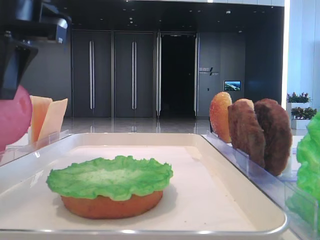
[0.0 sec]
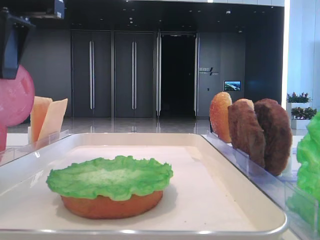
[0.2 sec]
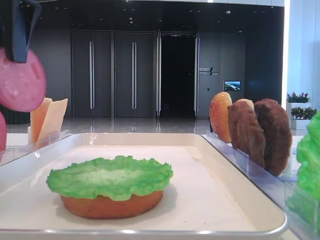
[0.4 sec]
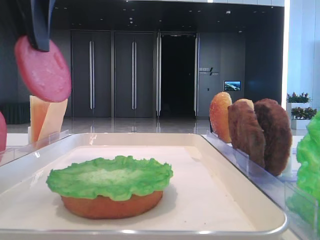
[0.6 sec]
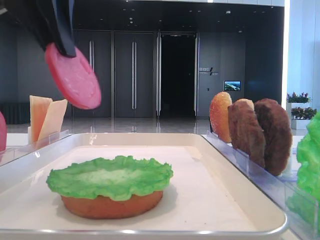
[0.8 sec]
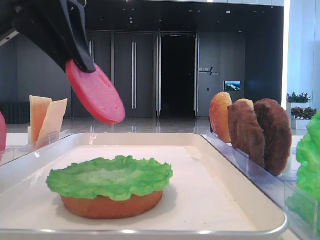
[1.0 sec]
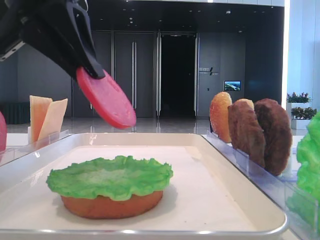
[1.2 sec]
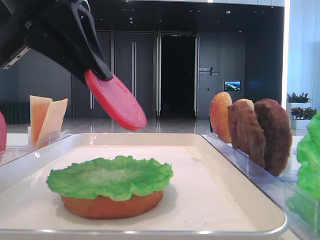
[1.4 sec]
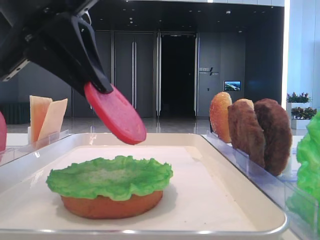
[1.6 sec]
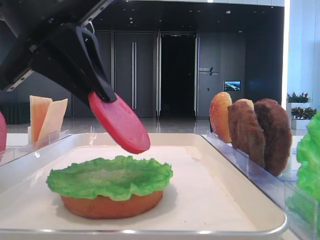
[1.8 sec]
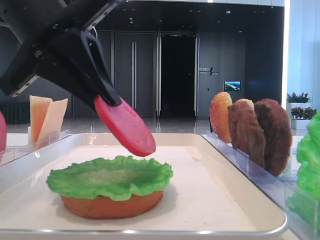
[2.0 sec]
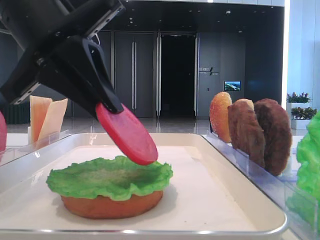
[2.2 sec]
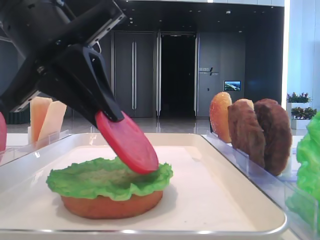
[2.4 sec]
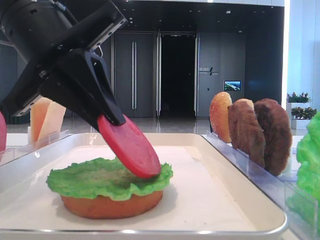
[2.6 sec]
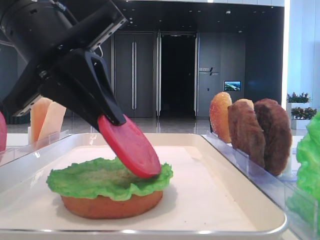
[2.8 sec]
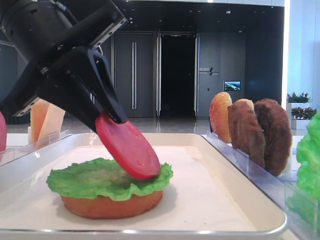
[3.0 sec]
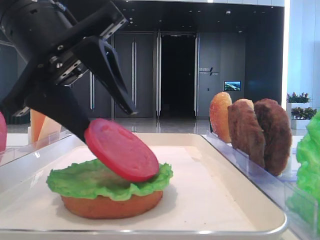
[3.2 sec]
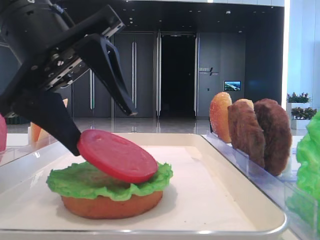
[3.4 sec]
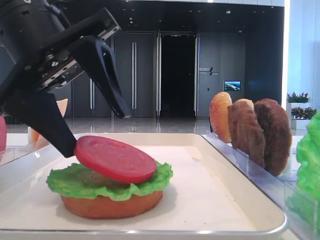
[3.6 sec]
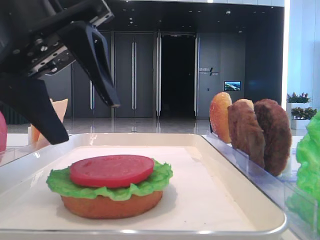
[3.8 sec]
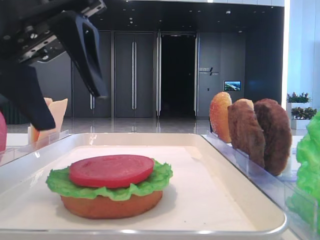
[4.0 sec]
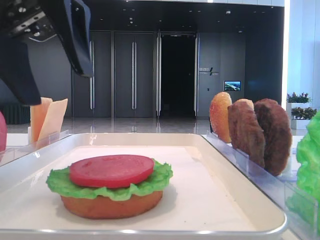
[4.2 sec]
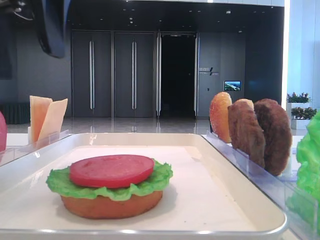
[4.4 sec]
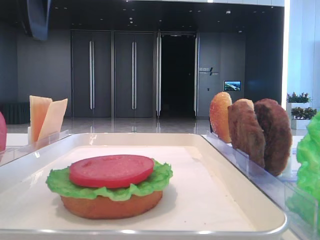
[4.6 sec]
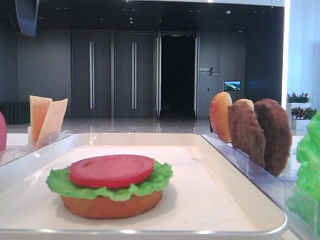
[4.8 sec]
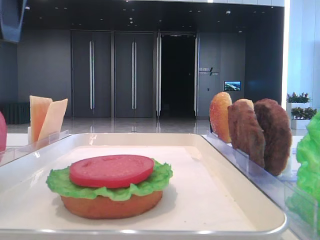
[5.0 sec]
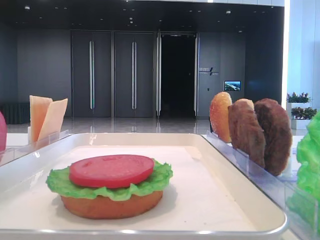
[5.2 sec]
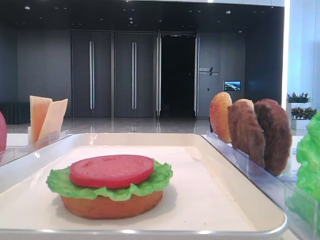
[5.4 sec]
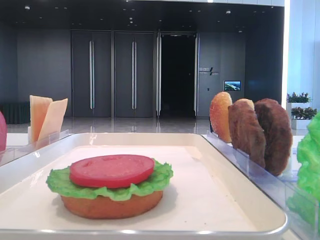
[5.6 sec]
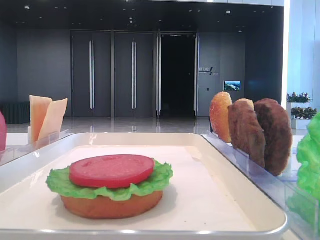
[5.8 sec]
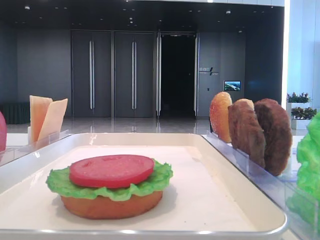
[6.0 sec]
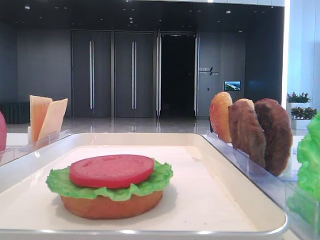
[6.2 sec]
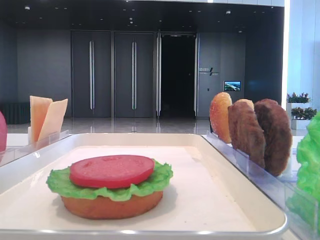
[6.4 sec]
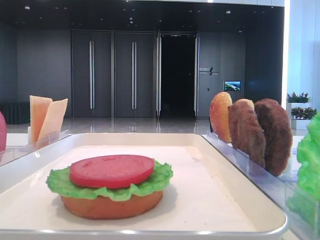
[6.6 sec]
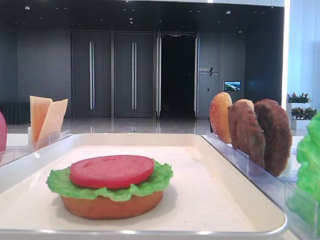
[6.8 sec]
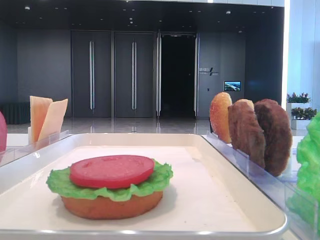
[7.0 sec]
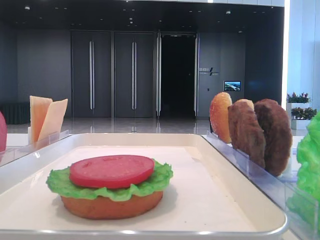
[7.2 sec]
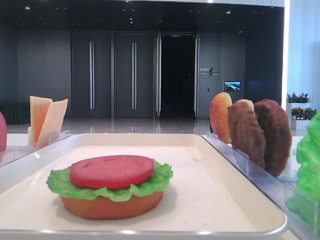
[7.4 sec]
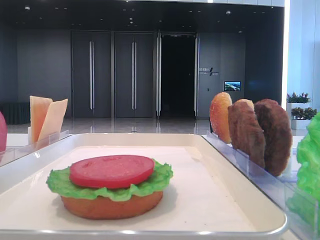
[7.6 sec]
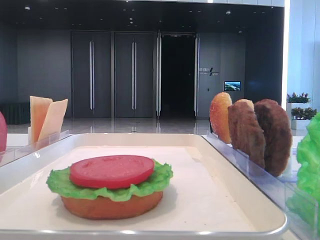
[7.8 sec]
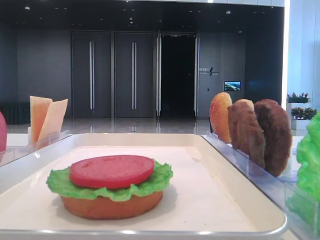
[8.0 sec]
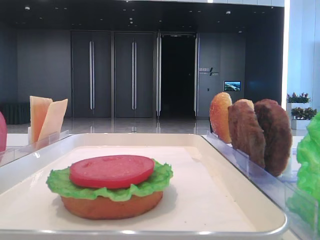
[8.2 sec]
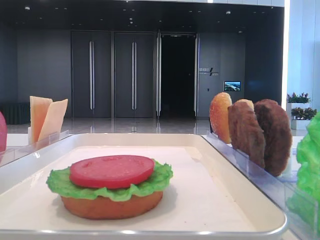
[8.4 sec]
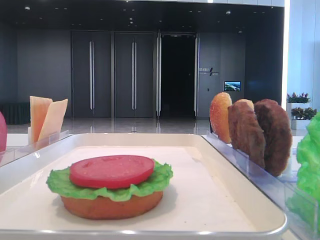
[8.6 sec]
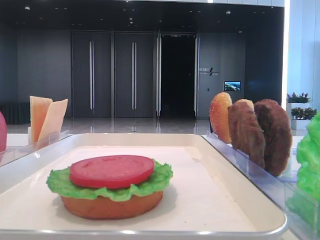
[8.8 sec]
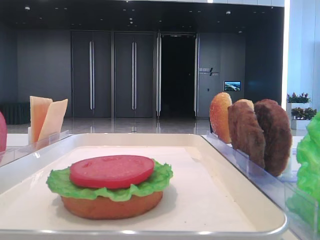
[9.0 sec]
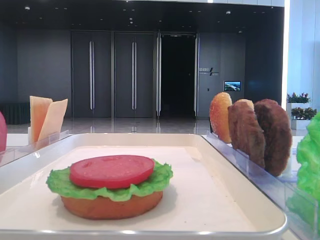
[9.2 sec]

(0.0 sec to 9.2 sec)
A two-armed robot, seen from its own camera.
Step, 0.0 sec - 3.6 sec: Place the tomato slice on the lettuce leaf with the left hand.
0.0 sec - 1.6 sec: The left gripper travels backward by some 5 cm.
1.6 sec - 3.0 sec: The grippers move only a little.
3.0 sec - 4.6 sec: The left gripper travels upward by about 10 cm, and opens up.
4.6 sec - 6.2 sec: The left gripper travels to the left by roughly 15 cm.
7.6 sec - 9.2 sec: Both grippers stay about where they are.
